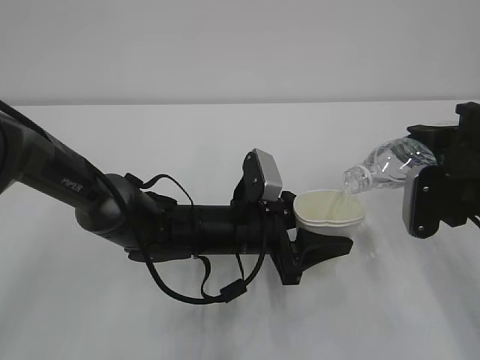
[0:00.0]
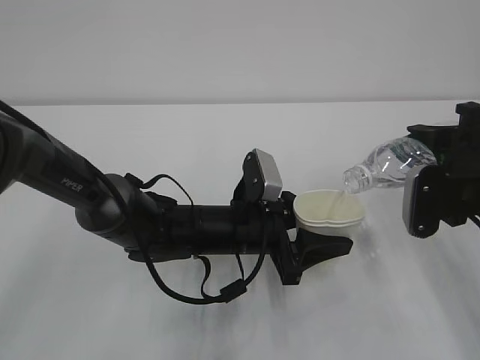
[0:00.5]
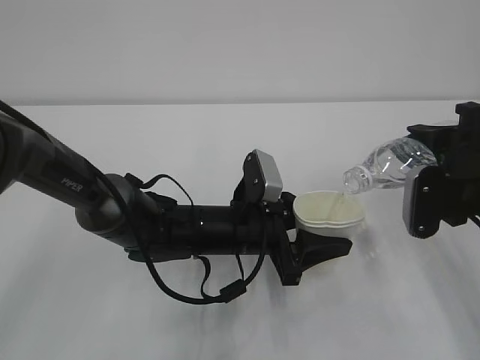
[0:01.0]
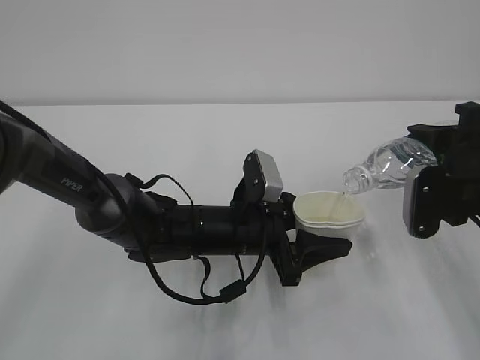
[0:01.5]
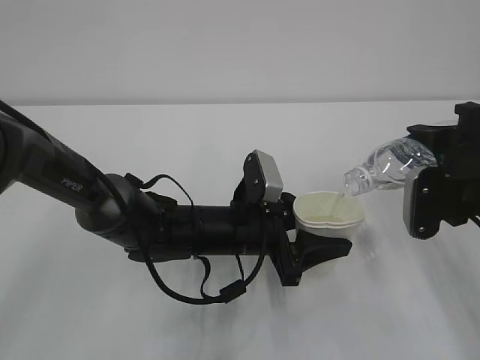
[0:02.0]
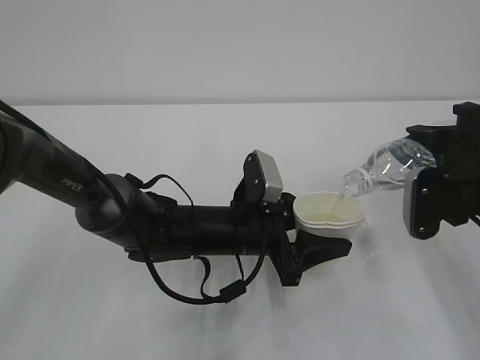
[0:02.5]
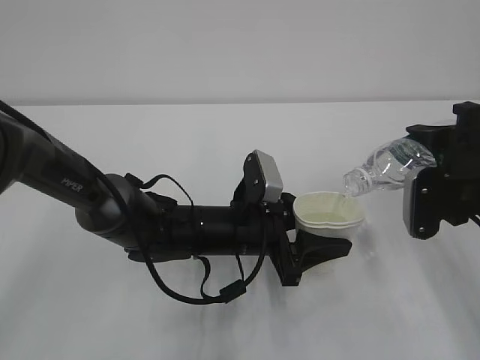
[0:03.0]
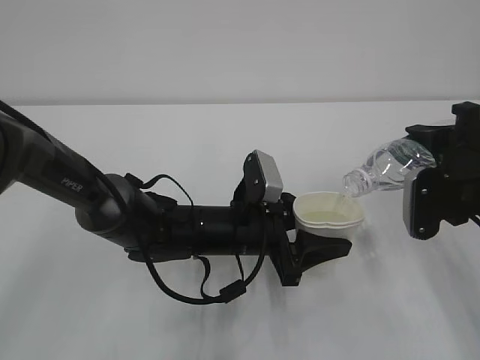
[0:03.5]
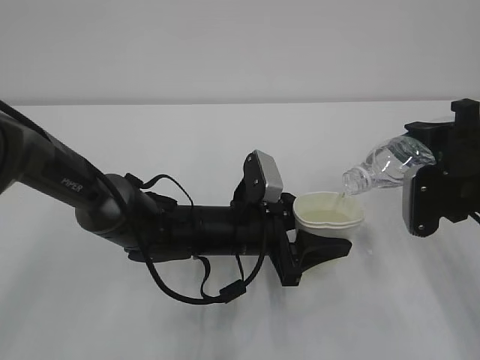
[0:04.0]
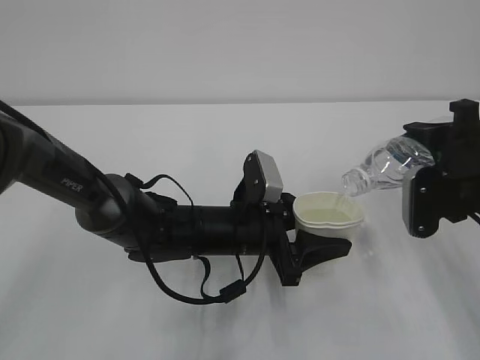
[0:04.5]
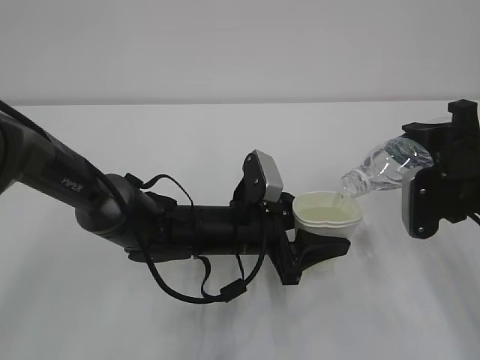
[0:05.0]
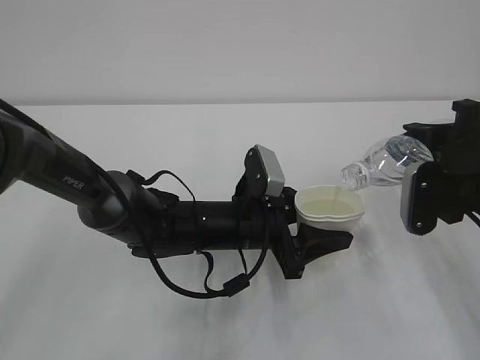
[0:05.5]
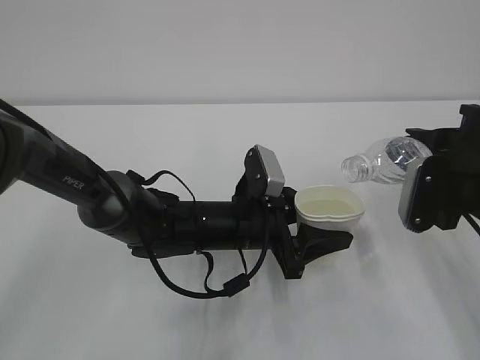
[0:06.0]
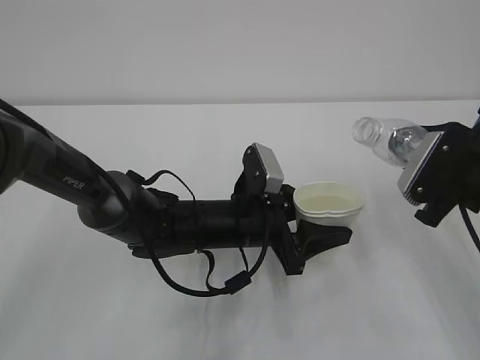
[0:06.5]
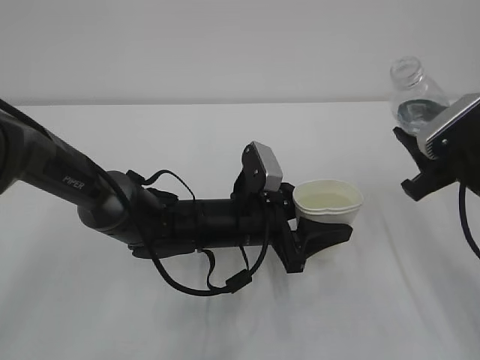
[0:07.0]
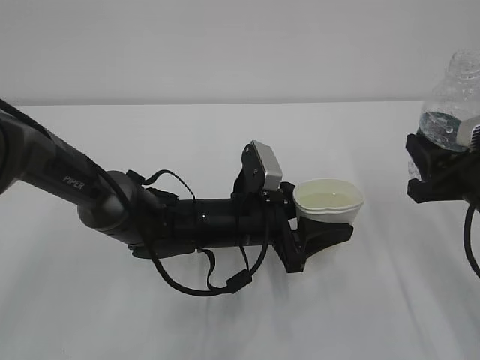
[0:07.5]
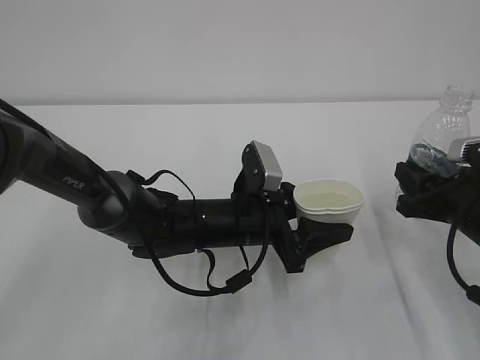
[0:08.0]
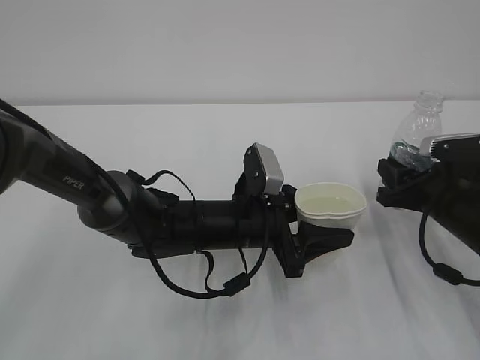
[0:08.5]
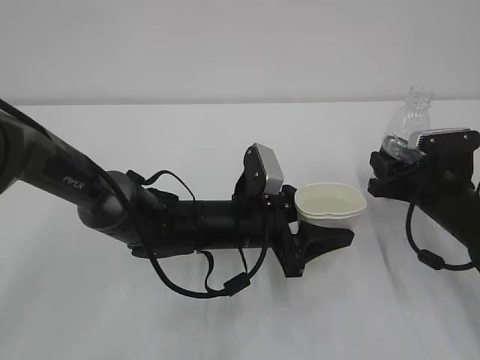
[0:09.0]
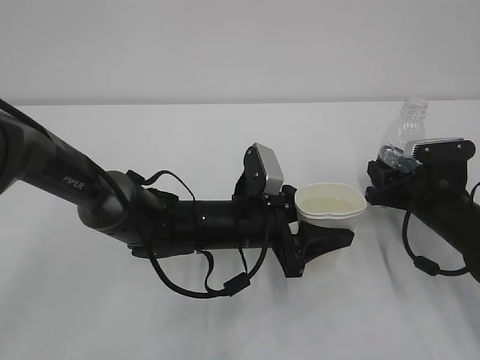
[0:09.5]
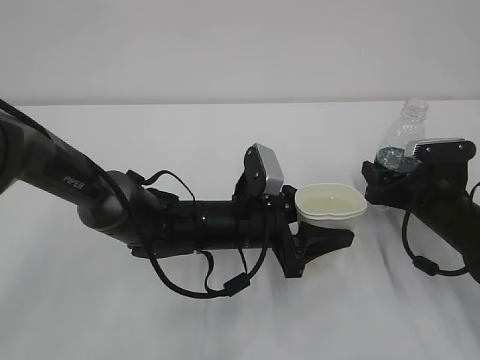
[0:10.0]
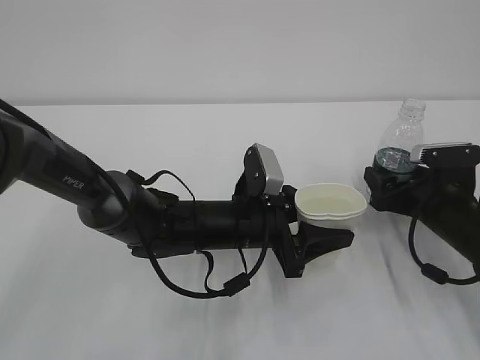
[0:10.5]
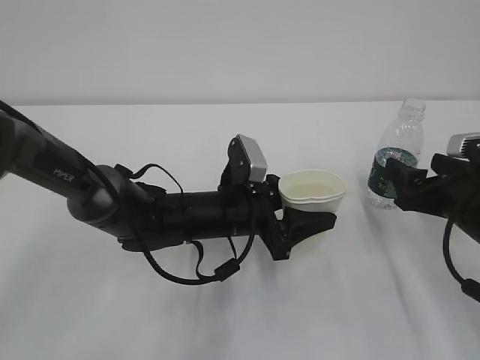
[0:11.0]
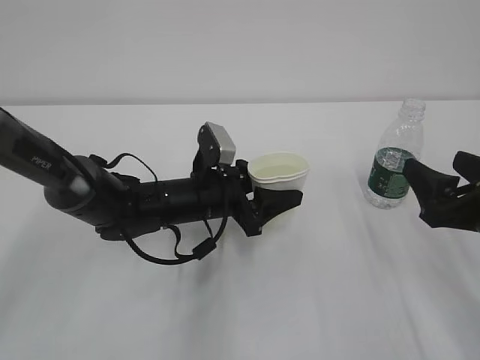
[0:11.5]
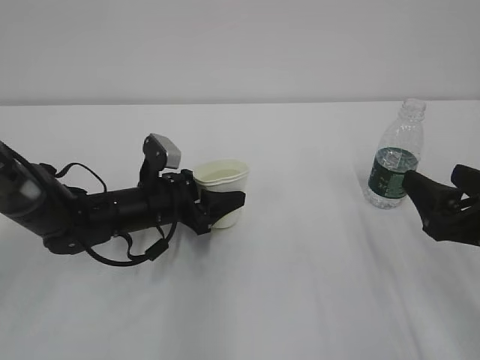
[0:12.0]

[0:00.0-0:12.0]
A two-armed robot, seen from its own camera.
0:00.0 to 0:04.0: Both grippers stay put.
0:04.0 to 0:06.0: The grippers make only small movements.
0:08.0 to 0:10.0: The right gripper shifts roughly 10 cm forward and downward, and opens.
0:10.0 to 0:12.0: The left gripper goes approximately 15 cm to the left and forward; the right gripper is displaced backward and upward by roughly 15 cm.

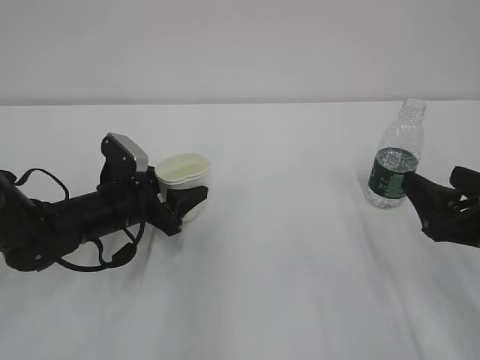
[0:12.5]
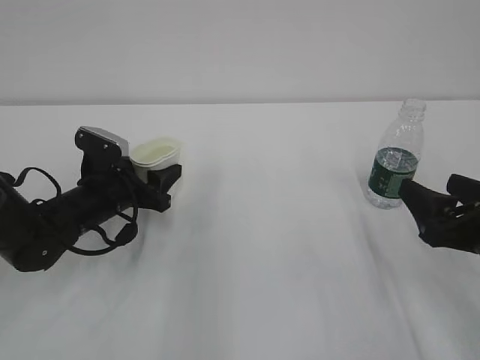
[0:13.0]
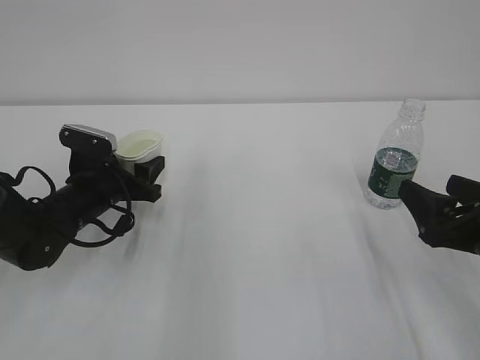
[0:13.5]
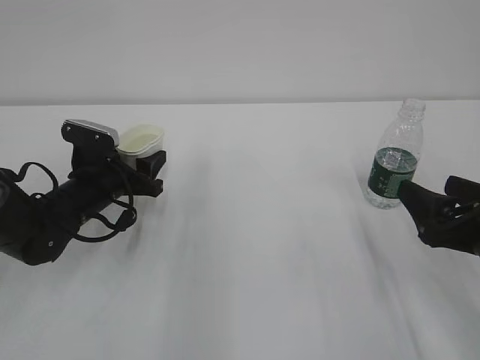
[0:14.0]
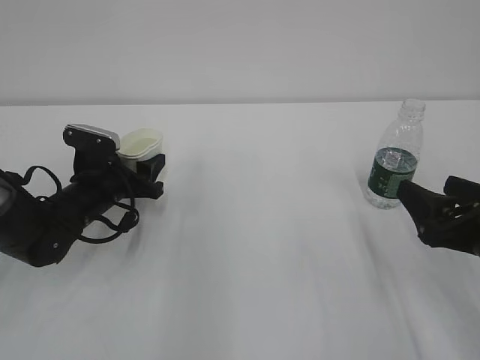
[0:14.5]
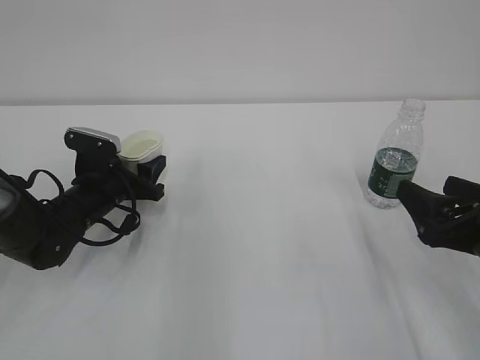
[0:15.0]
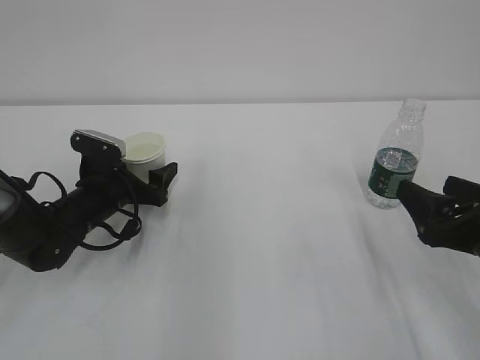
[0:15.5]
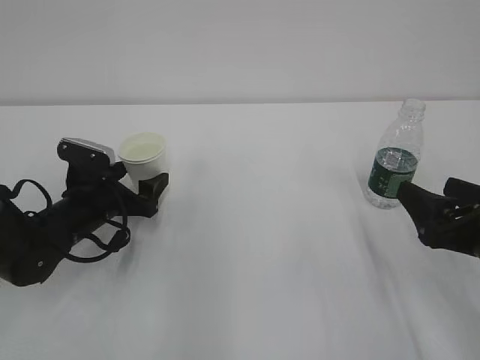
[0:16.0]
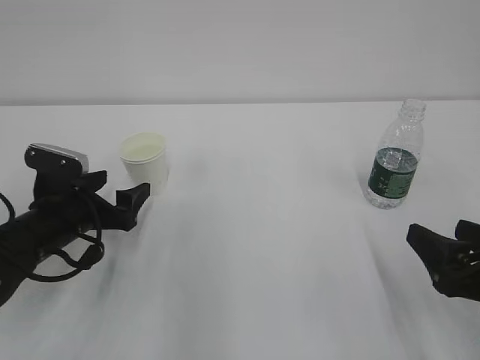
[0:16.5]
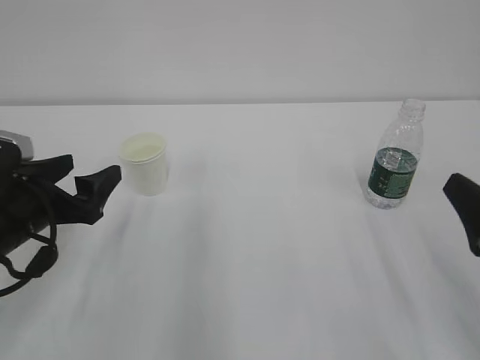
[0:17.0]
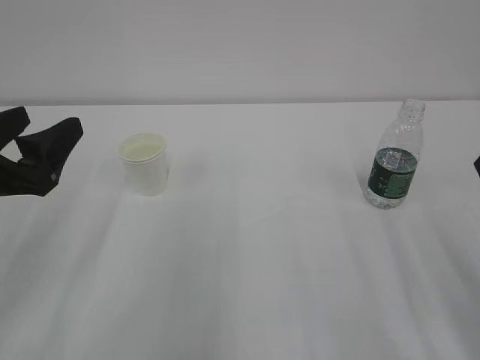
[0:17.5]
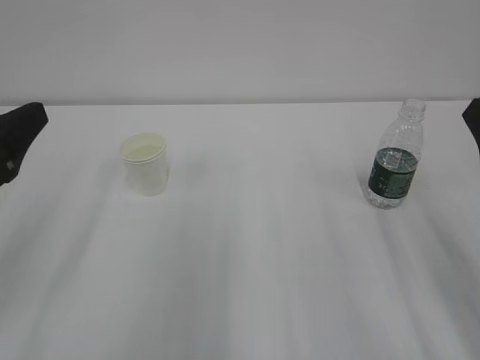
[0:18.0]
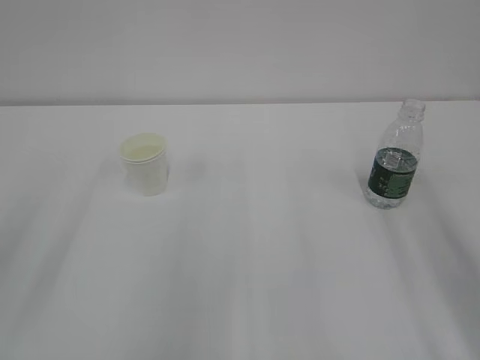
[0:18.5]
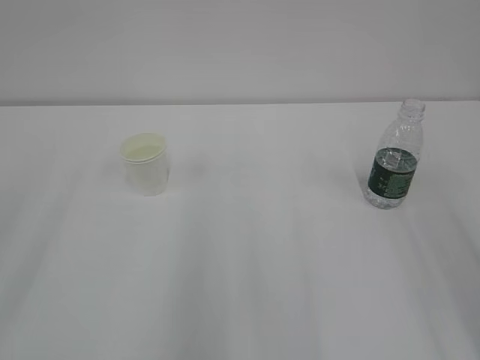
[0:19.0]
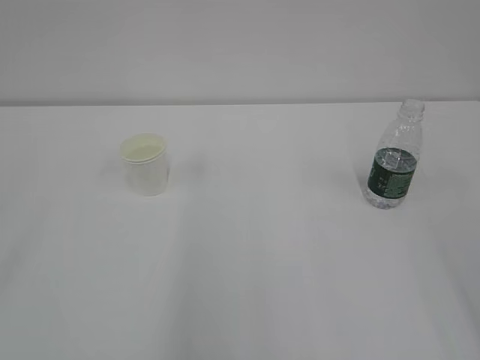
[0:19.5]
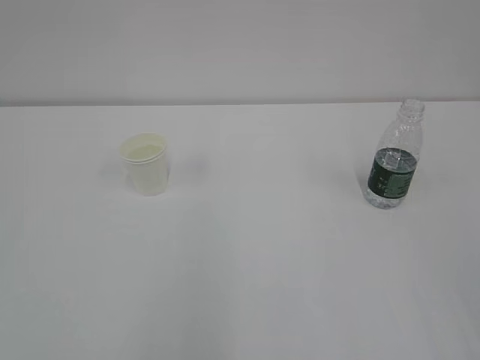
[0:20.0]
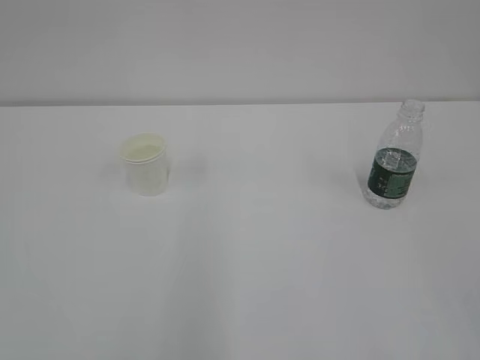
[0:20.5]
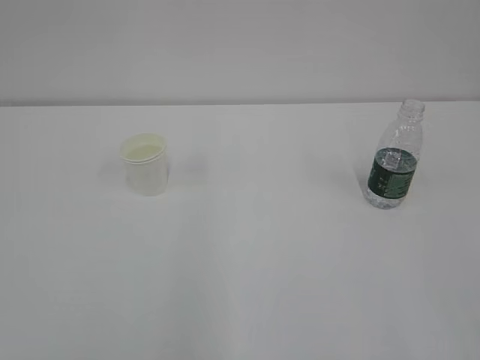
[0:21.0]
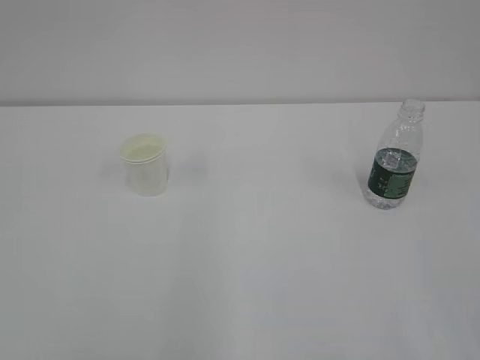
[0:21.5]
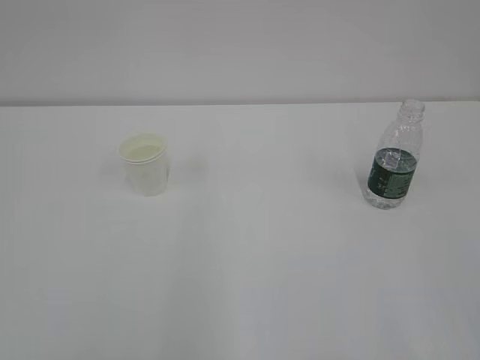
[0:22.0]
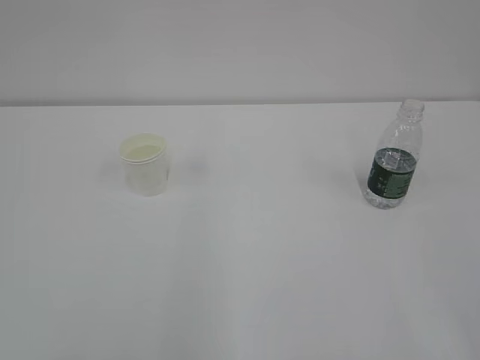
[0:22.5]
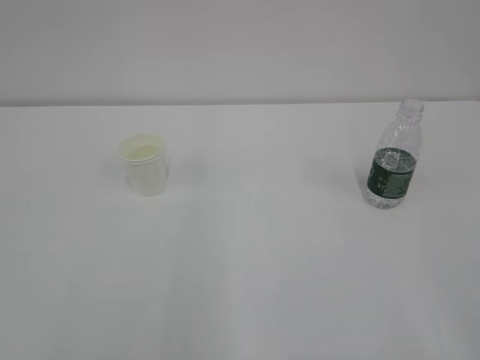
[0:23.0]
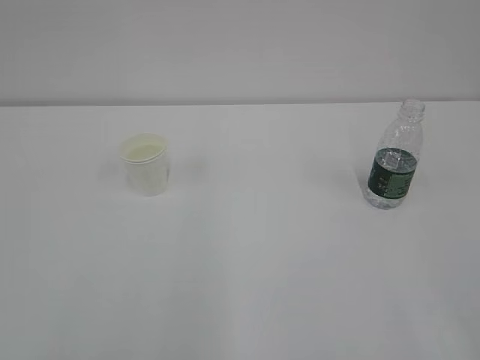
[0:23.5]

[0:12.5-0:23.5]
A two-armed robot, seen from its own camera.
0:14.5 to 0:16.0: The left gripper opens.
0:16.0 to 0:18.0: The left gripper moves upward and backward, about 25 cm. The right gripper travels upward by roughly 10 cm.
0:18.0 to 0:20.0: The left gripper moves backward and upward, approximately 25 cm.

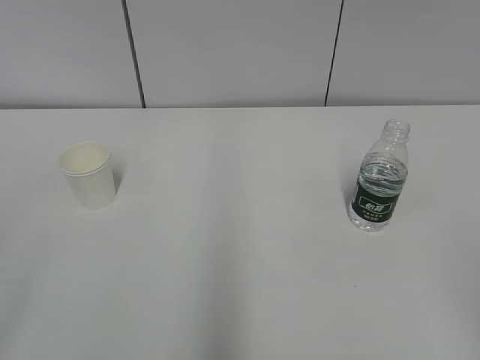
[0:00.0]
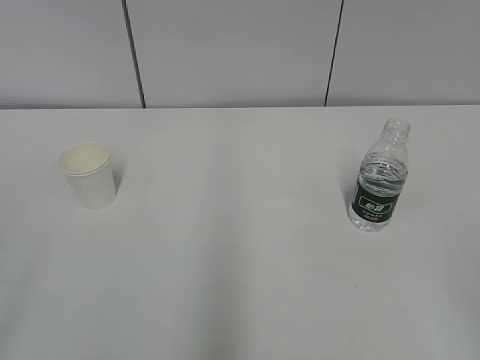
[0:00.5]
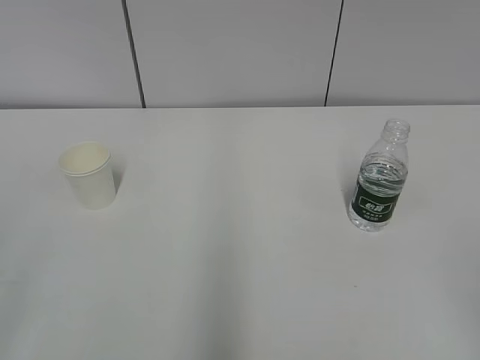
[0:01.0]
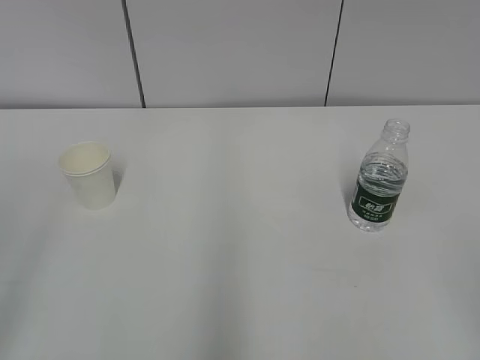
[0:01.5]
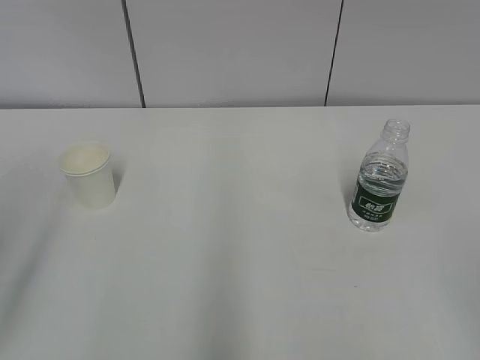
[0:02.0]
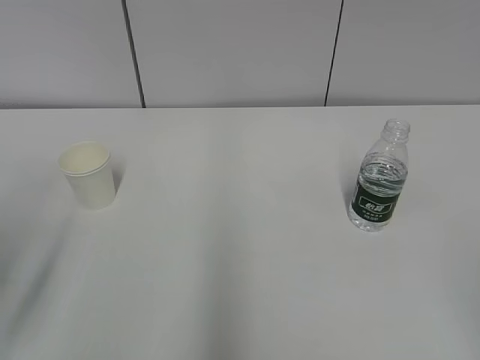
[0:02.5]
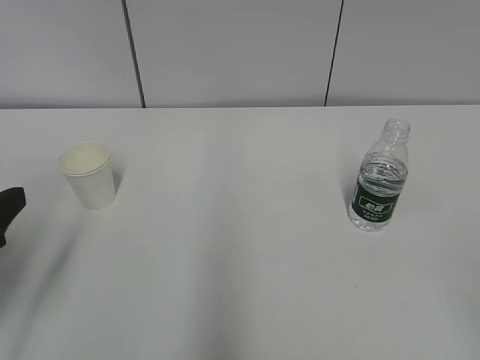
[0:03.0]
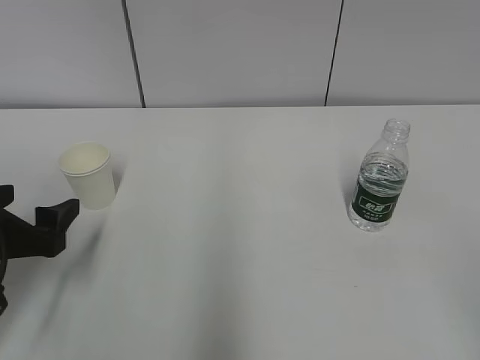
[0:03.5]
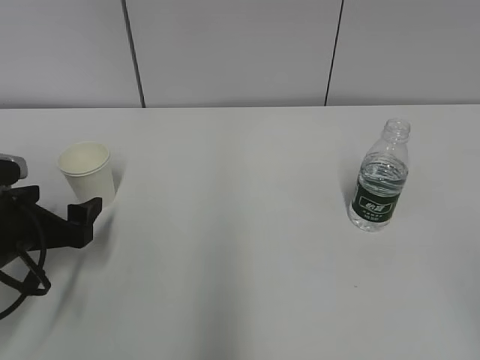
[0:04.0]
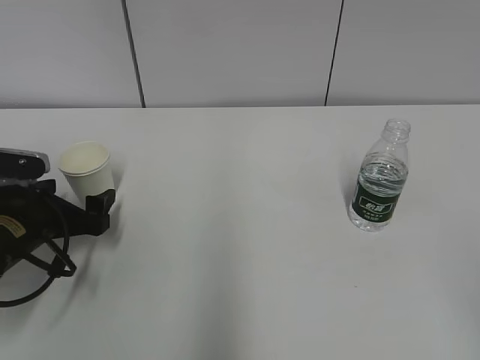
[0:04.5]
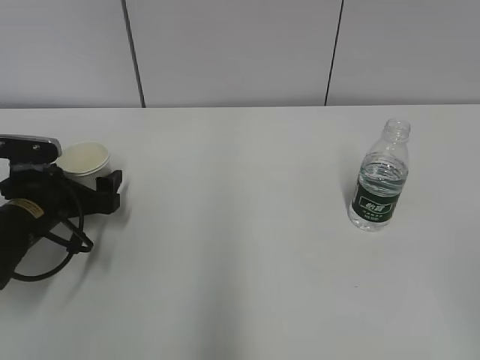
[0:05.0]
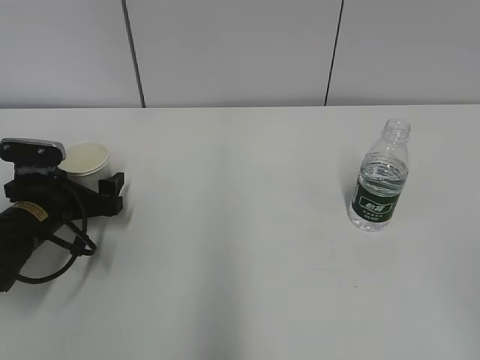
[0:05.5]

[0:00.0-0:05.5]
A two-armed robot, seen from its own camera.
Step, 0:00.0 to 0:05.0: Grab the paper cup with the left hand.
0:02.0 to 0:03.5: The left gripper goes approximately 20 cm downward and forward.
0:03.5 to 0:05.5: The left gripper travels forward and downward by approximately 15 cm.
